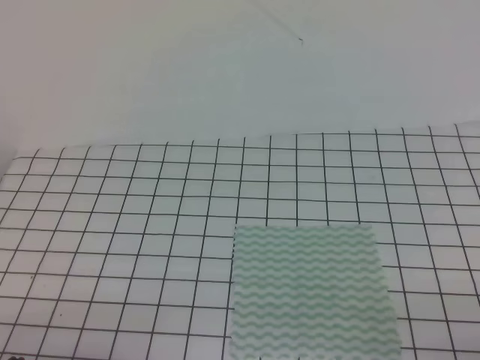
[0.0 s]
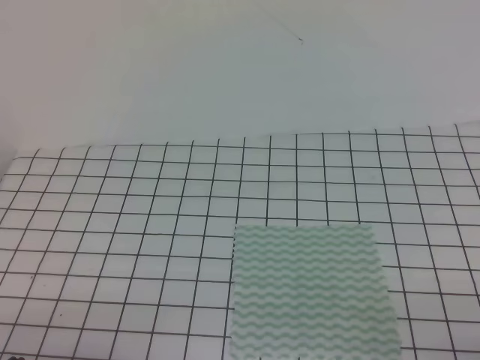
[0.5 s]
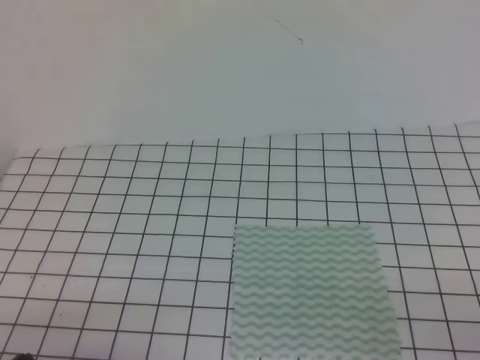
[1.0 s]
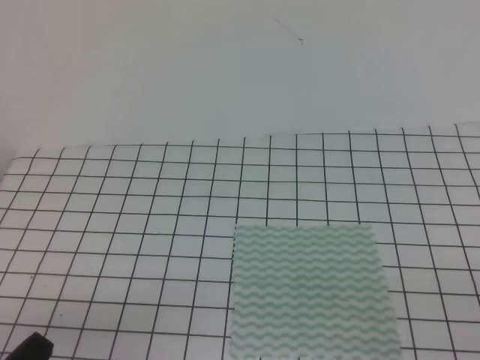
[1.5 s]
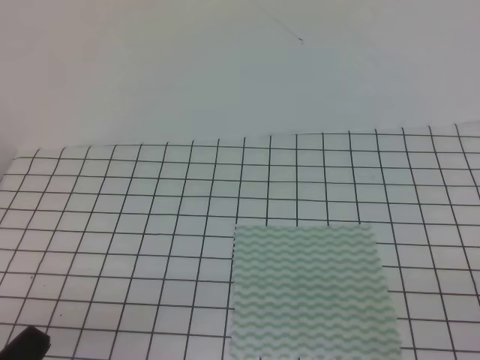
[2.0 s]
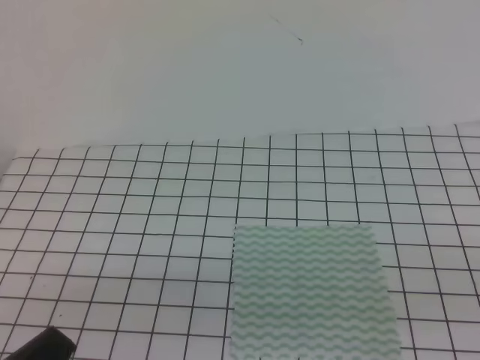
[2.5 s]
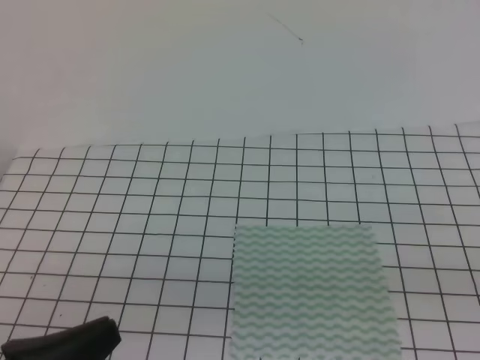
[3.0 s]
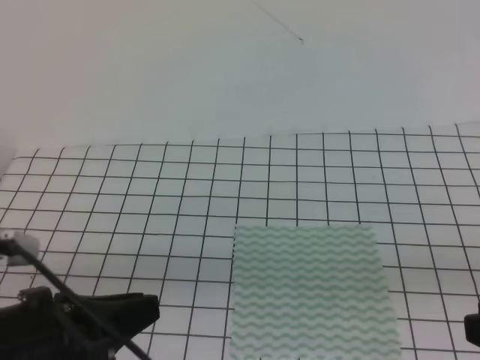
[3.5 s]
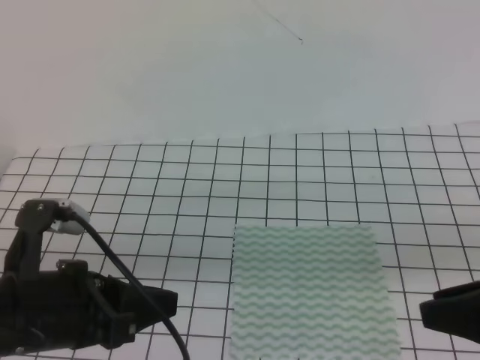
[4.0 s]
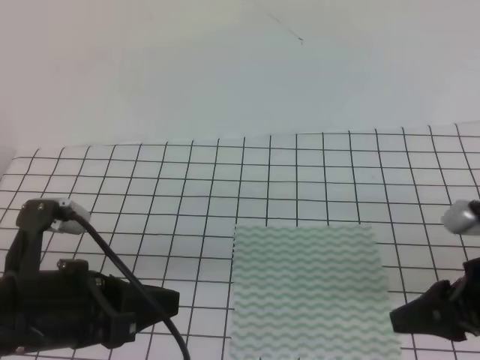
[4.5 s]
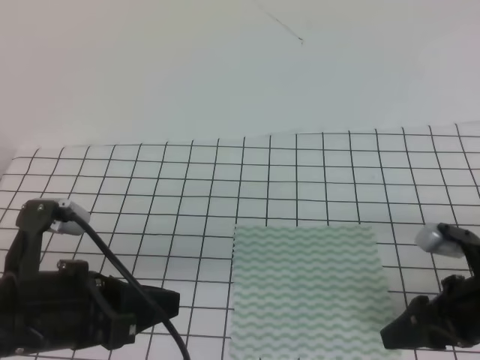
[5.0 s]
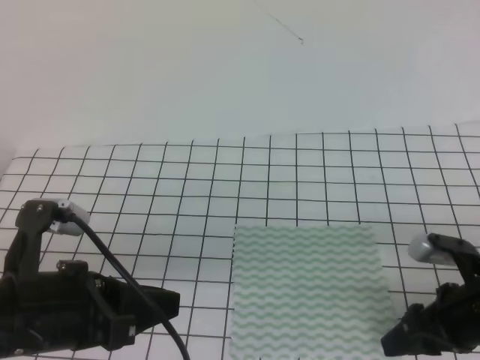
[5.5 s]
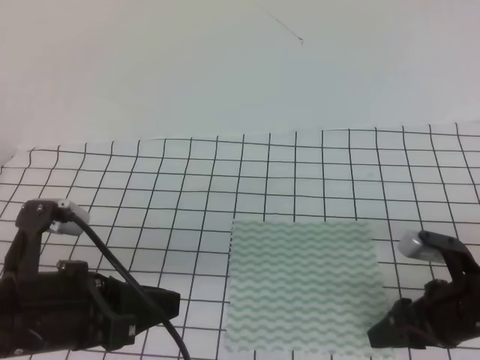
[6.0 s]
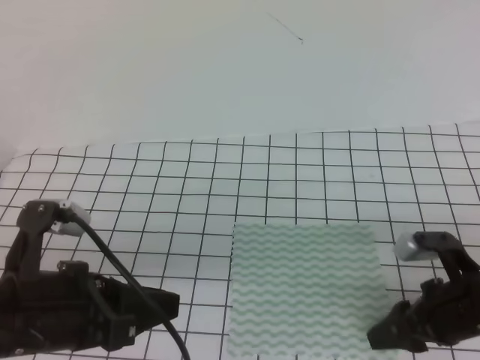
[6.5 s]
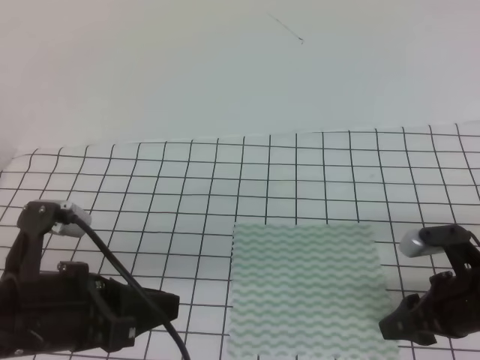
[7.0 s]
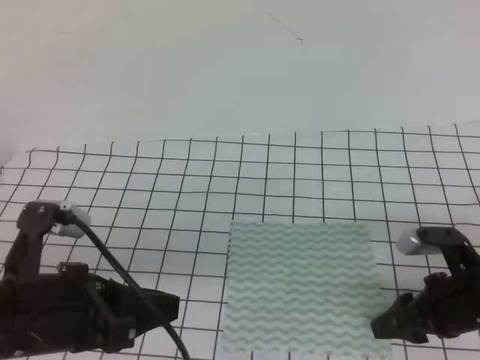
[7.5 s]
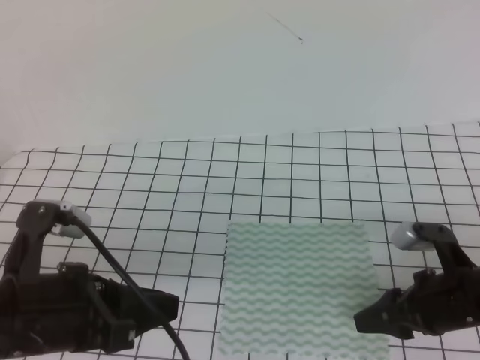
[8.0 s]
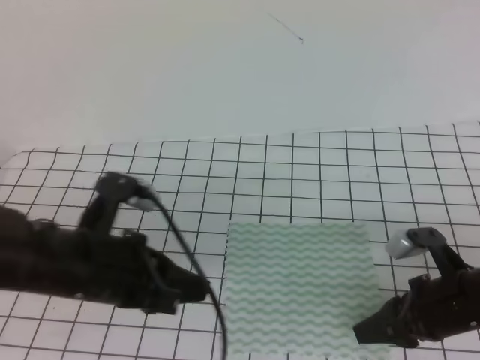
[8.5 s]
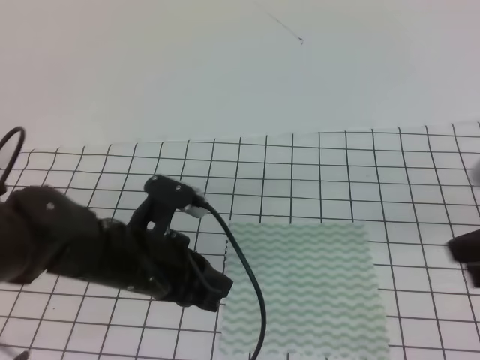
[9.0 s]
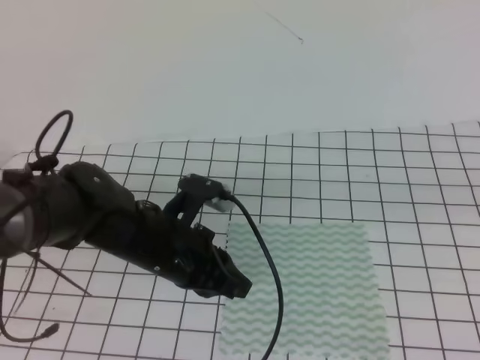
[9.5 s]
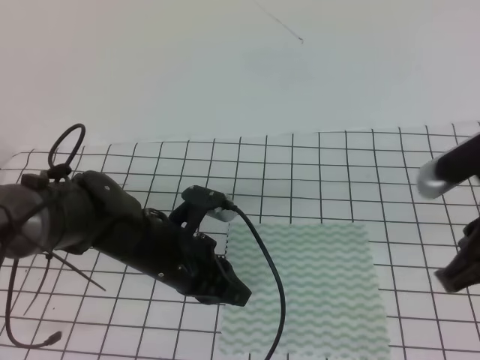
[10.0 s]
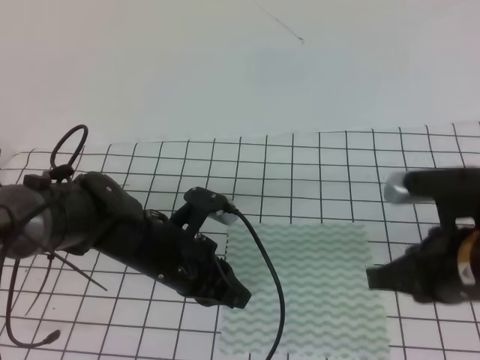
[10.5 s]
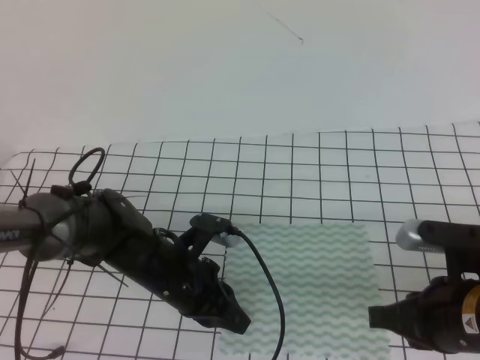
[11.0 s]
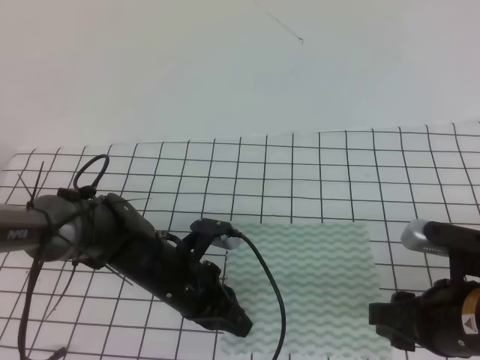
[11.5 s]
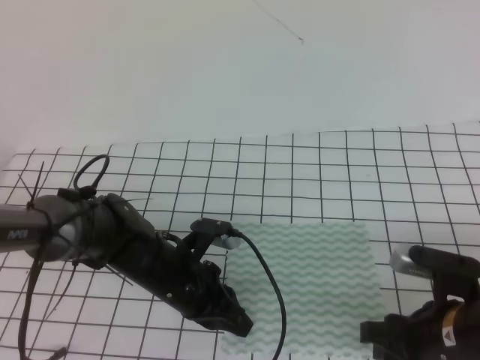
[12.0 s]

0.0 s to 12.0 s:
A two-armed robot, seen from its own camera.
2.0 to 4.0 s: The left gripper moves forward, upward and to the right, roughly 15 cm, and opens, while the right gripper travels forward, to the left and upward by roughly 15 cm, and opens up.
4.0 to 6.0 s: The right gripper moves downward and forward, approximately 15 cm.
6.0 to 8.0 s: The grippers stay close to where they were, moving slightly.
8.0 to 10.0 s: The left gripper moves forward, to the right and downward, roughly 15 cm, and closes. Meanwhile the right gripper moves upward, about 15 cm, and closes up.
10.0 to 12.0 s: The left gripper travels downward by approximately 5 cm. Meanwhile the right gripper moves downward, approximately 15 cm, and opens.

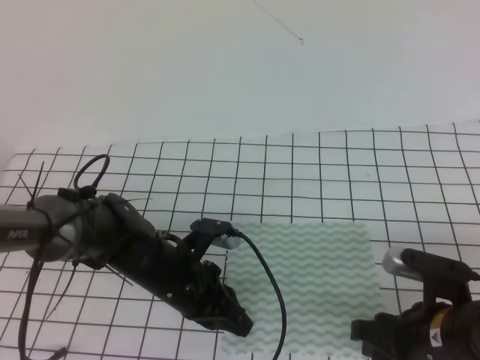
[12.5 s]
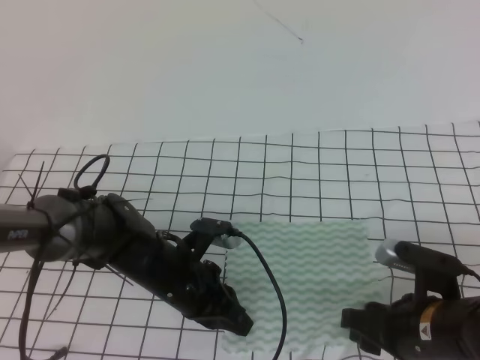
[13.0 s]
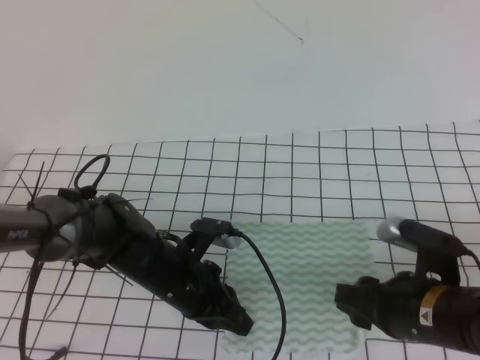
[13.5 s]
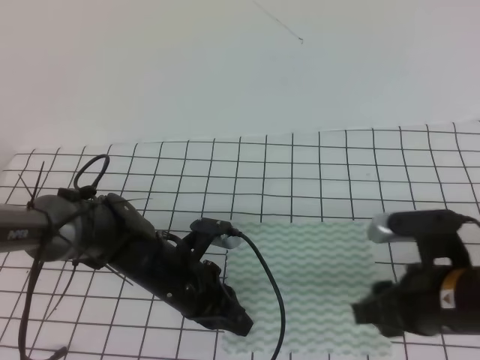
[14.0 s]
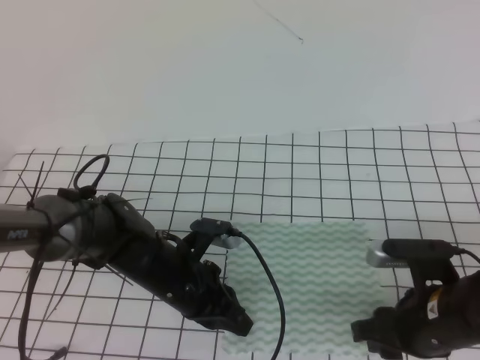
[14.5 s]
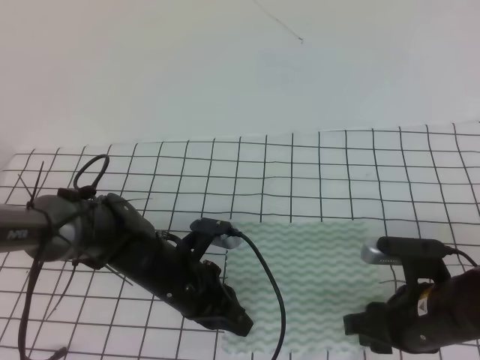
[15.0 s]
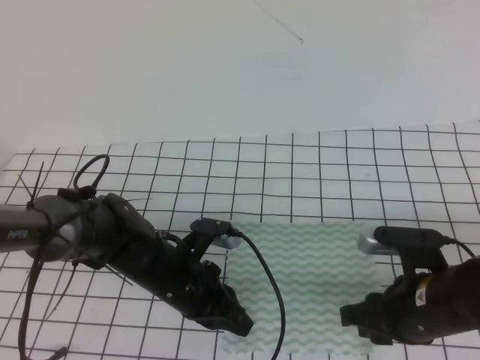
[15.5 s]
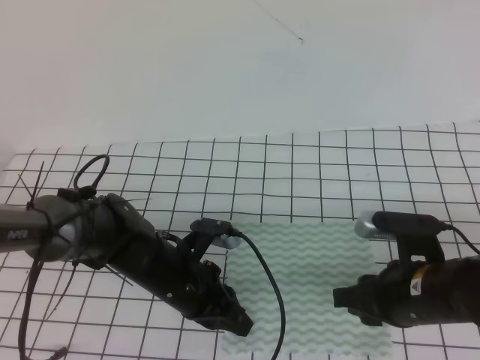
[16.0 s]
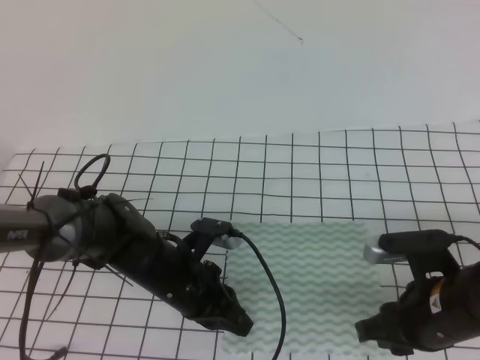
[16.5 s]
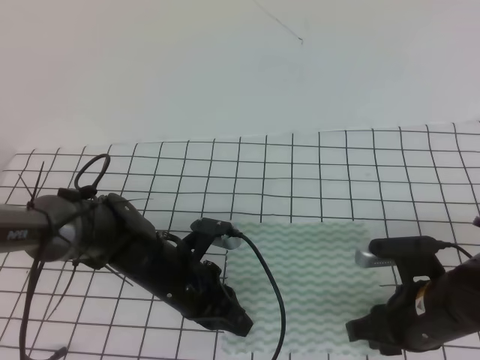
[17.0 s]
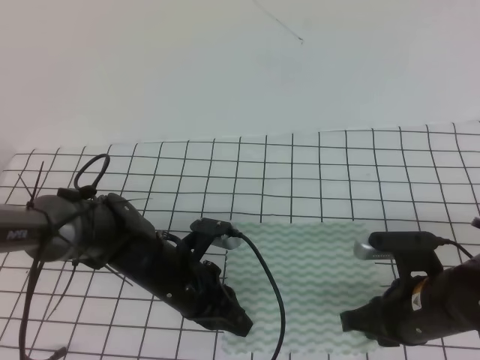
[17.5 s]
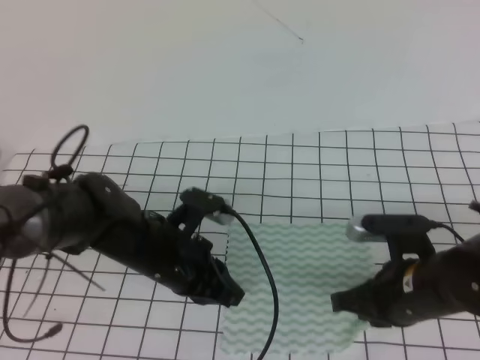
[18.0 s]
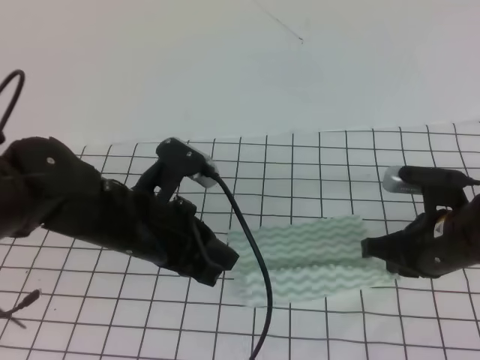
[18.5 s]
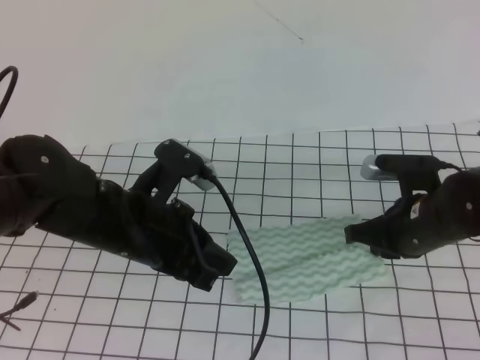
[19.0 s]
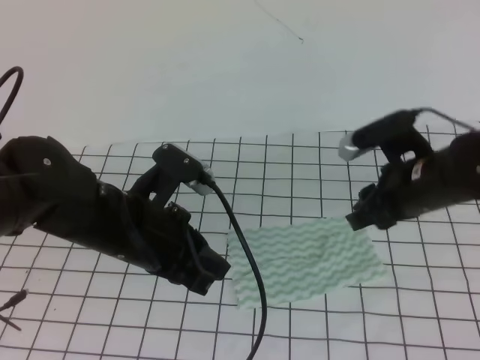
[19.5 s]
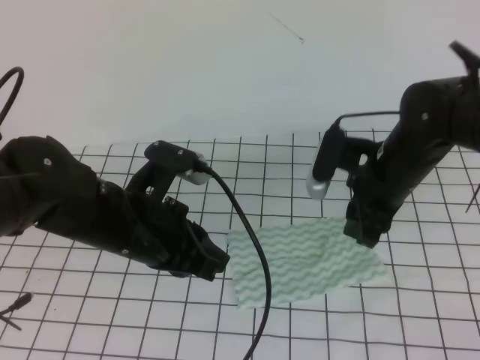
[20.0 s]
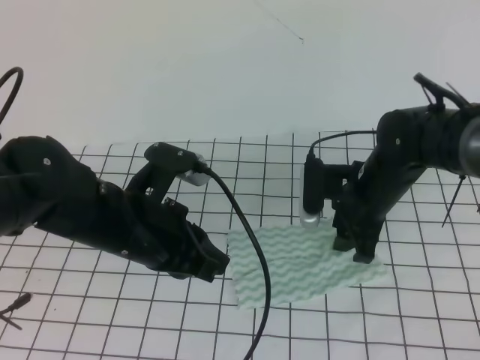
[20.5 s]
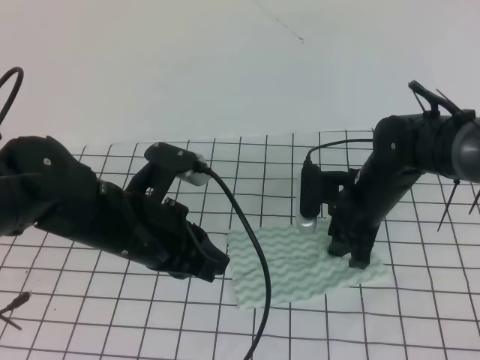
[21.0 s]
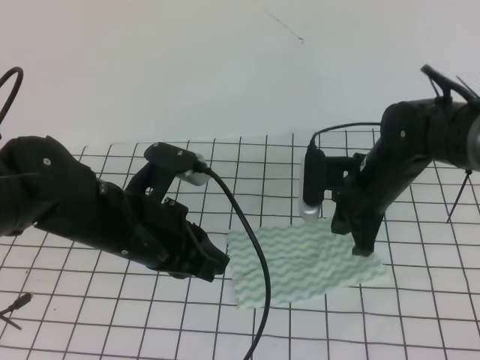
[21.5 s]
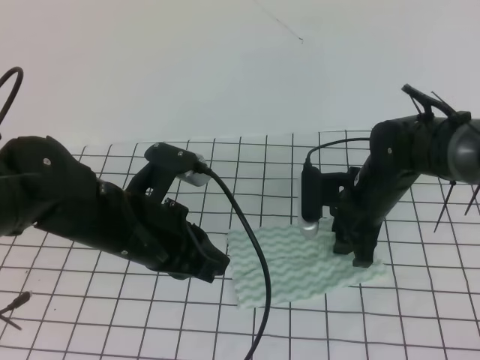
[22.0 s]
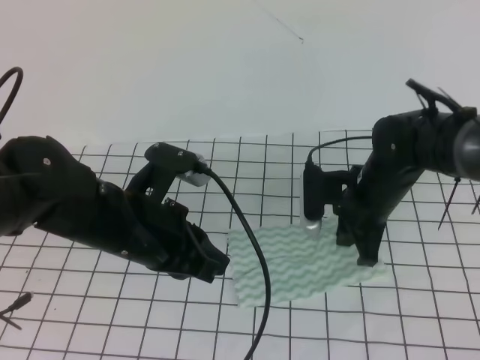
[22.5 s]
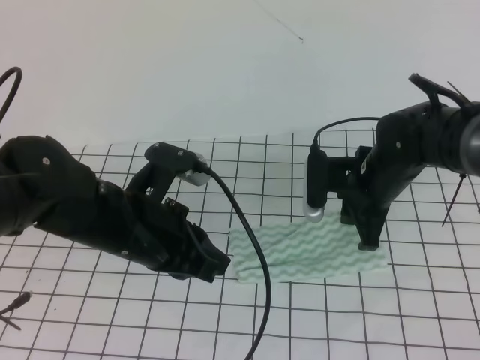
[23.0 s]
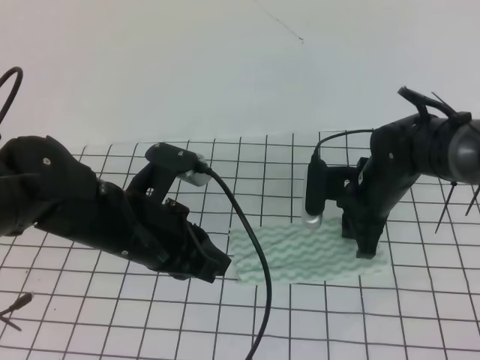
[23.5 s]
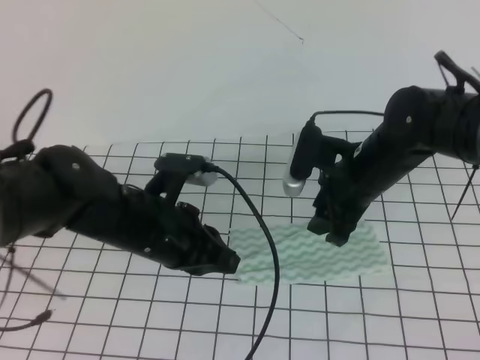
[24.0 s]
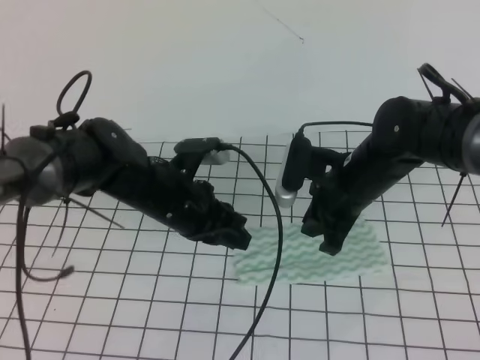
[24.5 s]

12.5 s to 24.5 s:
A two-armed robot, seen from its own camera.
12.5 to 16.5 s: There are only small adjustments of the grippers.
16.5 to 18.5 s: The left gripper goes some 15 cm upward. The right gripper goes some 5 cm forward, and closes its fingers.
18.5 to 20.5 s: The right gripper heads forward, covering some 10 cm, and opens up.
20.5 to 22.5 s: The right gripper closes.
22.5 to 24.5 s: The left gripper is displaced forward and downward by about 10 cm, and opens its fingers, while the right gripper opens, then closes once more.

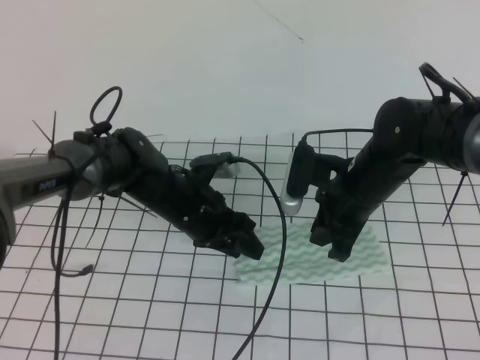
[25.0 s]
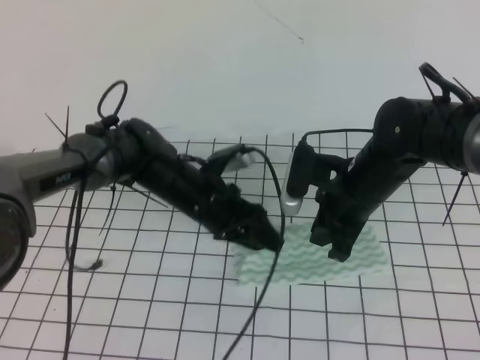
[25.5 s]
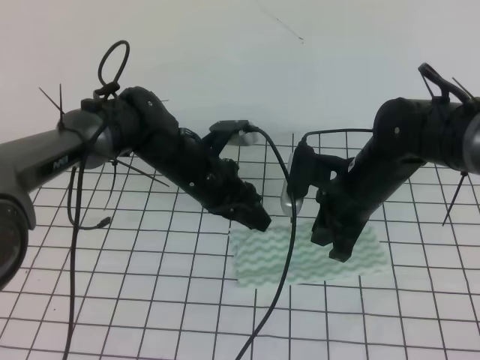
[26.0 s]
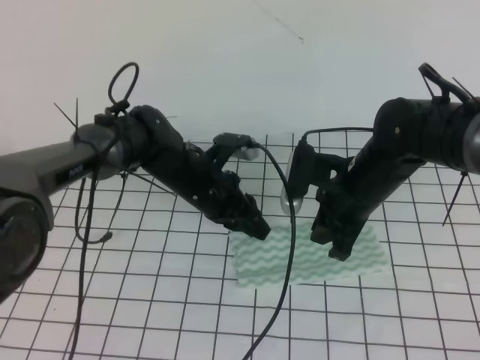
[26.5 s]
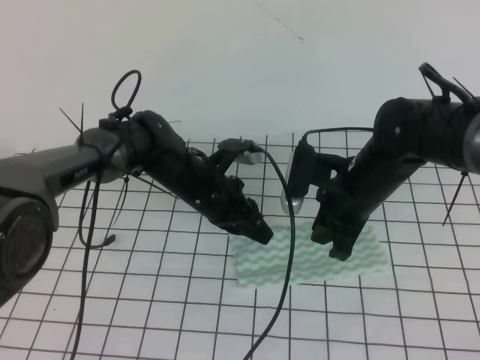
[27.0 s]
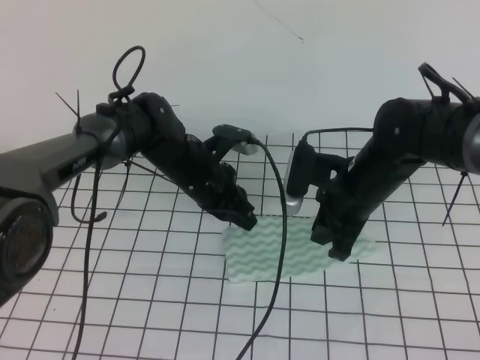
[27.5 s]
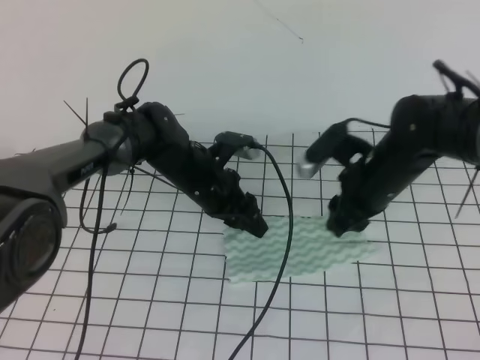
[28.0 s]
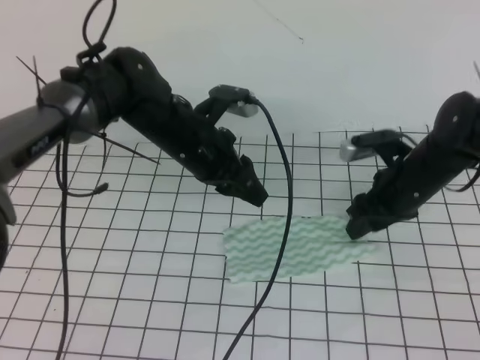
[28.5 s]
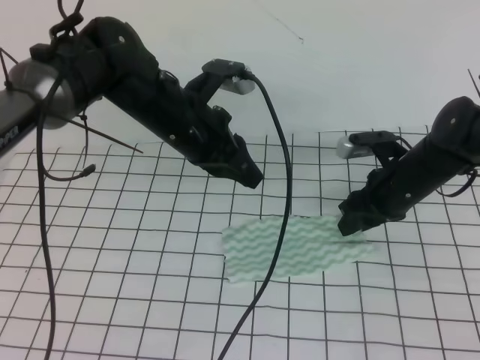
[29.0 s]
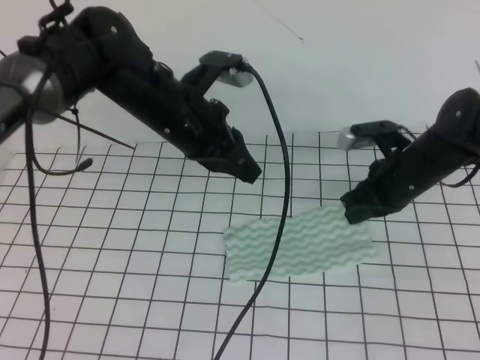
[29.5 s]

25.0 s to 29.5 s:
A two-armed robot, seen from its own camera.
25.0 to 27.0 s: The left gripper closes its fingers.
27.0 to 29.5 s: The left gripper moves upward, approximately 15 cm, and opens and closes again, while the right gripper goes approximately 5 cm to the right, and opens, then closes again.
